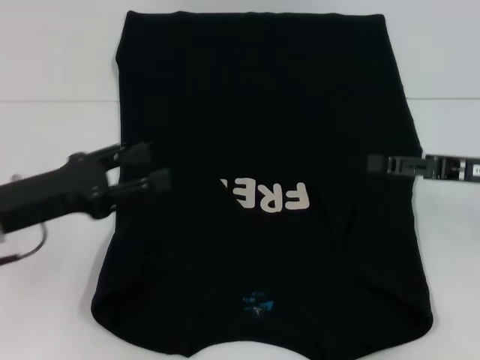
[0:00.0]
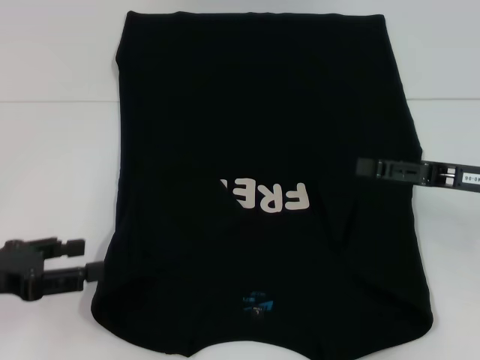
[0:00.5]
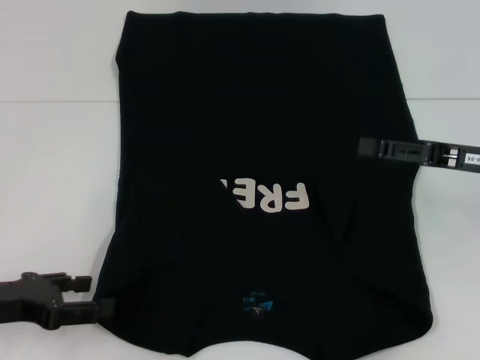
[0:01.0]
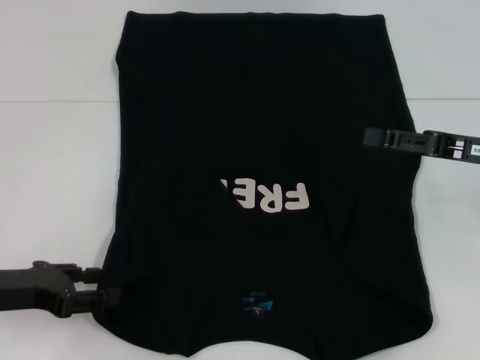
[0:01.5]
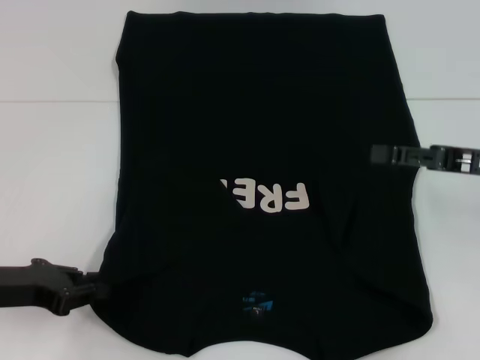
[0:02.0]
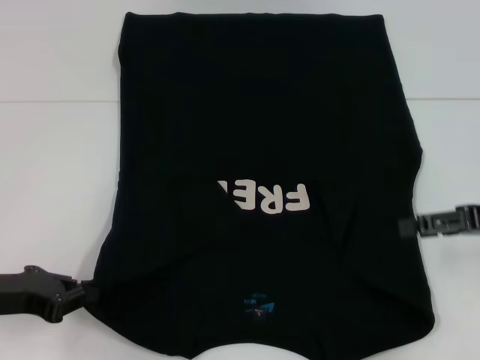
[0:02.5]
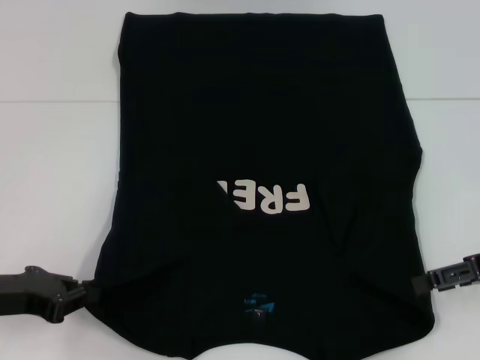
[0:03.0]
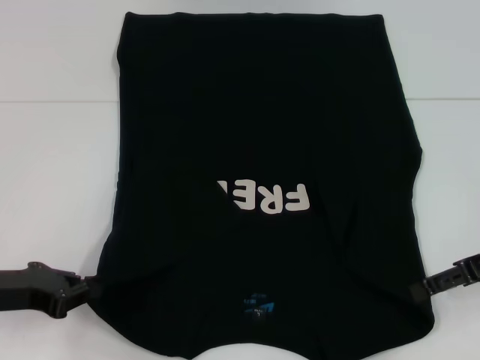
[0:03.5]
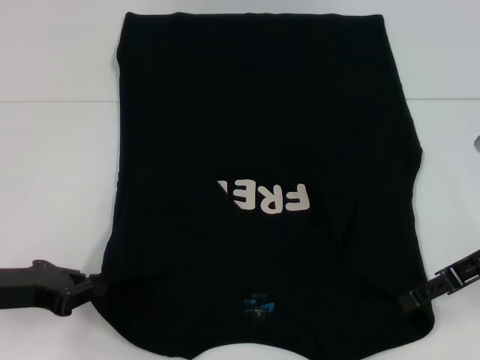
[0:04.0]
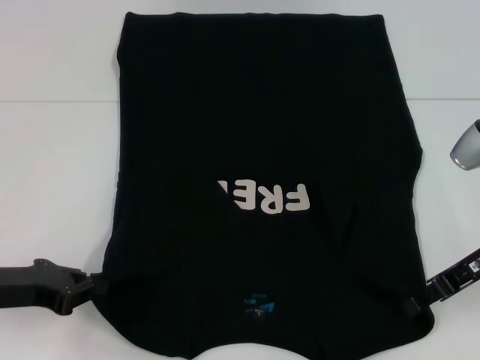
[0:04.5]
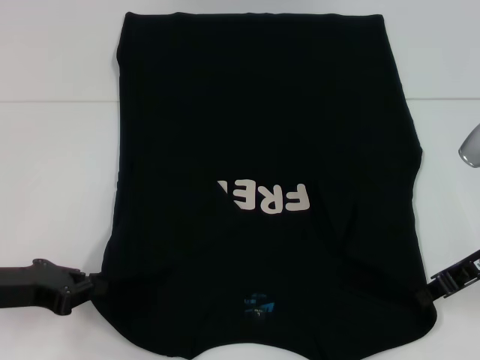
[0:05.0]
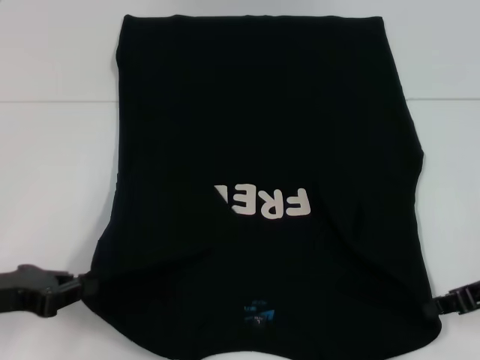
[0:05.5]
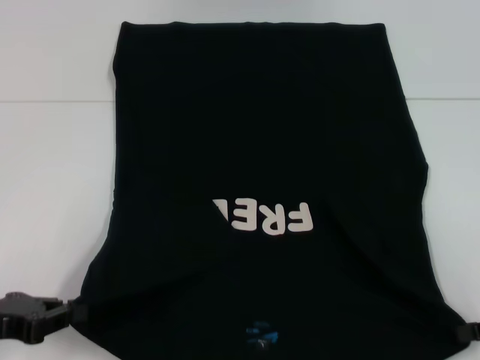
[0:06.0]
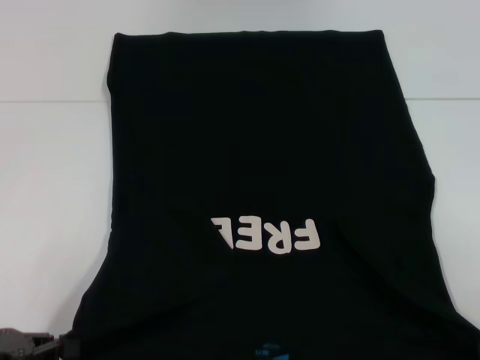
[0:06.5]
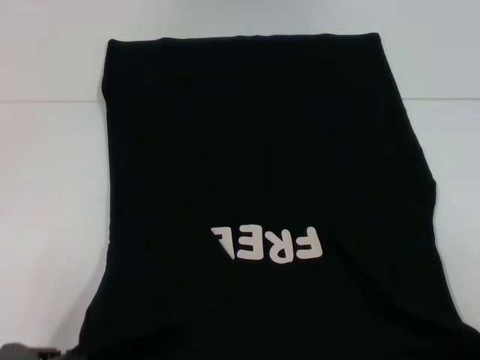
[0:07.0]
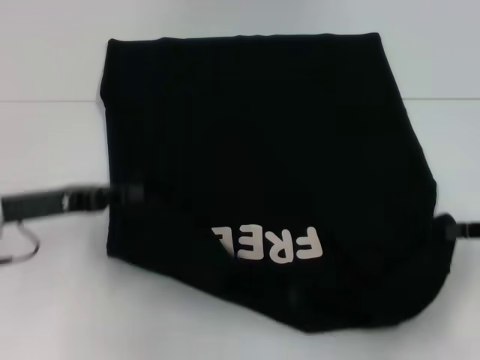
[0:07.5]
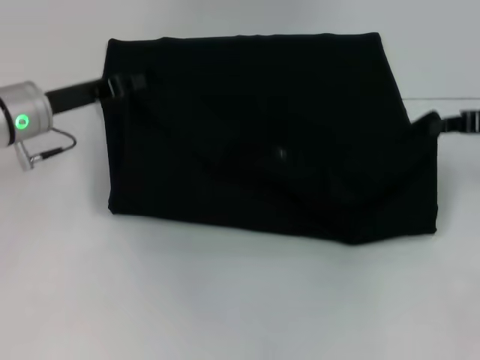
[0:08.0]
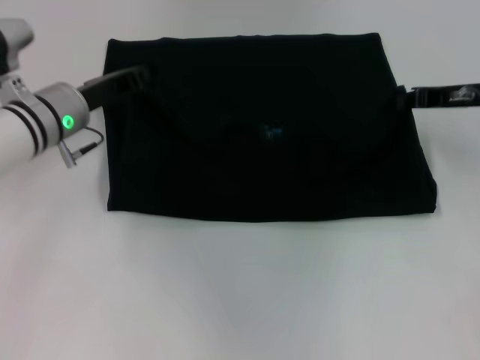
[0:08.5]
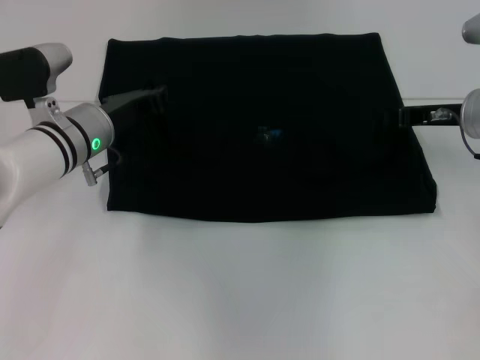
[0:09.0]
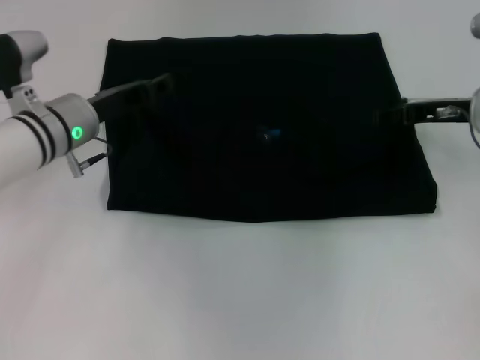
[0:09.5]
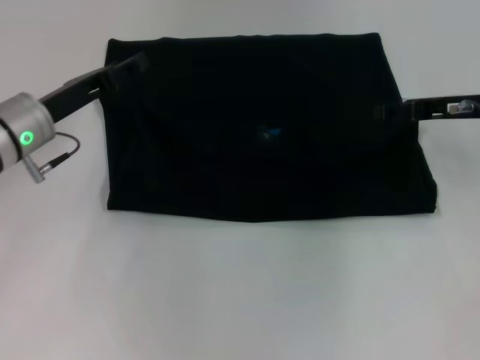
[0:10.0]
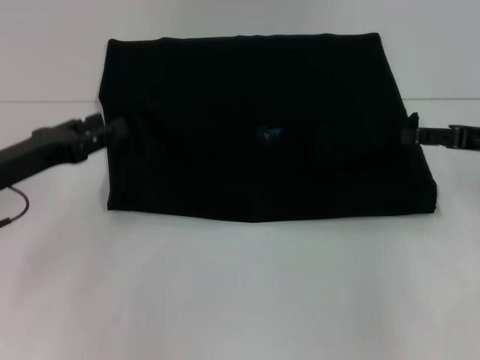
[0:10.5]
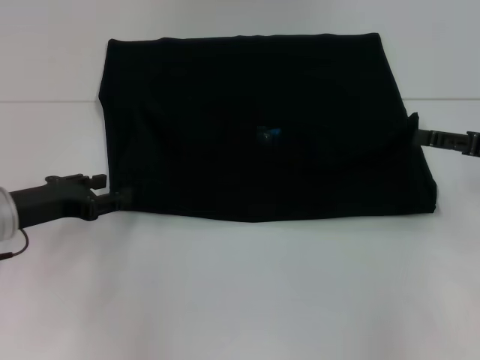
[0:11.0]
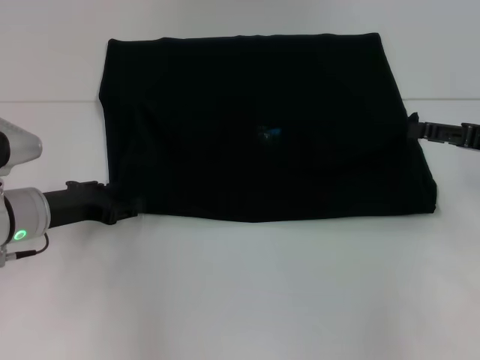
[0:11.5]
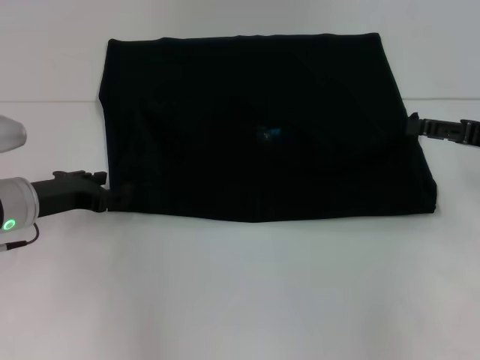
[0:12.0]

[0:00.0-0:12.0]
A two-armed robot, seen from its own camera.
Step, 0:00.0 to 0:02.0: Grab the bottom left corner with your left hand.
Step, 0:02.5 to 0:05.0: Grab the bottom right corner with your right hand.
Step, 0:05.5 to 0:09.5: Fold the clothes with your left hand.
Step, 0:05.5 to 0:09.5: Fold the clothes with your right hand.
0:00.0 to 0:02.0: The left gripper moves roughly 5 cm, and closes its fingers.
0:02.0 to 0:04.0: The left gripper closes its fingers.
0:04.0 to 0:06.0: The right gripper travels backward and to the right by some 10 cm, and closes up.
0:06.0 to 0:08.0: The left gripper travels forward and to the right by approximately 20 cm; the right gripper goes roughly 15 cm forward and upward.
0:08.0 to 0:10.0: The right gripper travels to the left by approximately 5 cm, and opens its fingers, while the left gripper opens its fingers.
0:10.0 to 0:12.0: The right gripper goes some 10 cm backward and to the right. Meanwhile the left gripper changes place by about 5 cm.

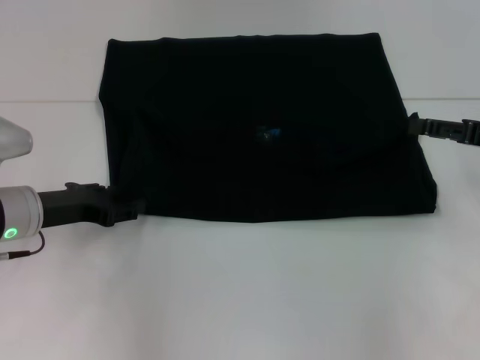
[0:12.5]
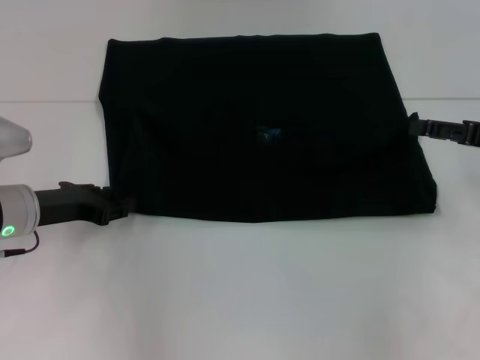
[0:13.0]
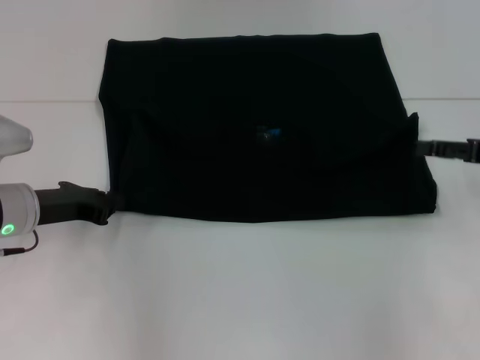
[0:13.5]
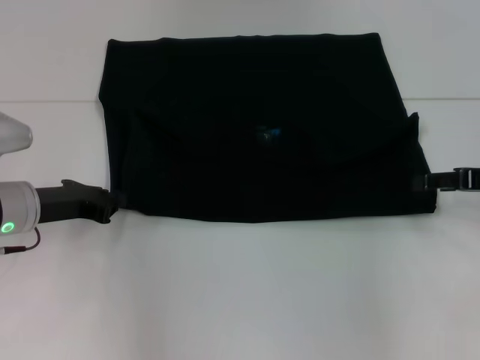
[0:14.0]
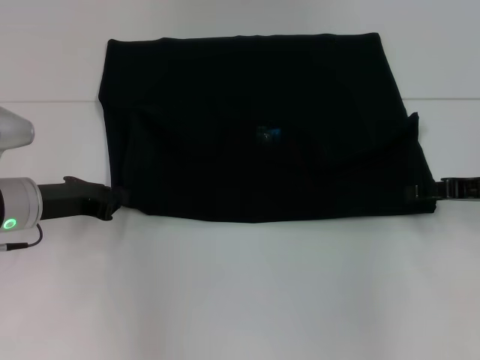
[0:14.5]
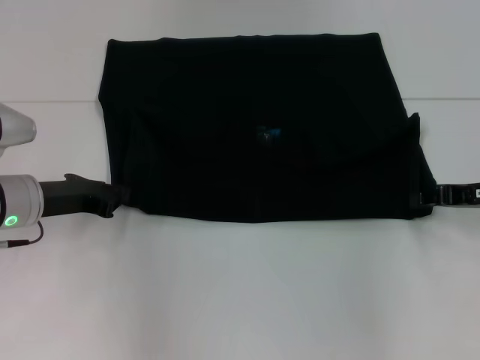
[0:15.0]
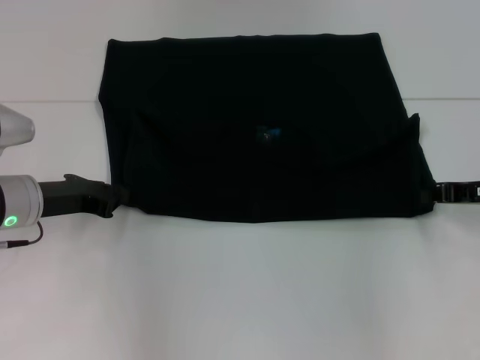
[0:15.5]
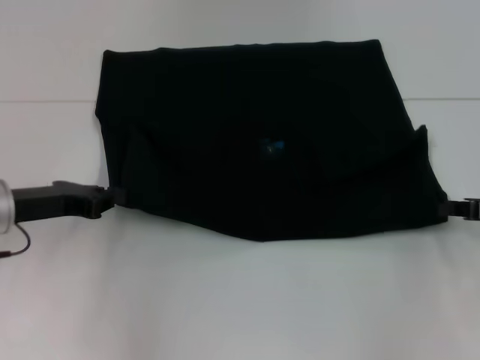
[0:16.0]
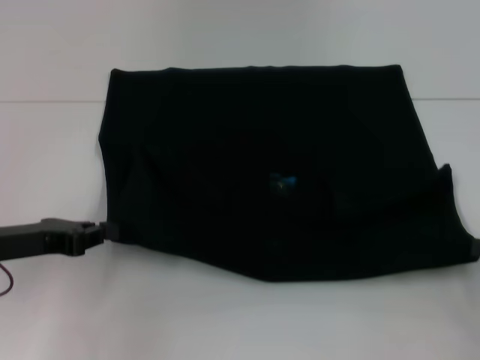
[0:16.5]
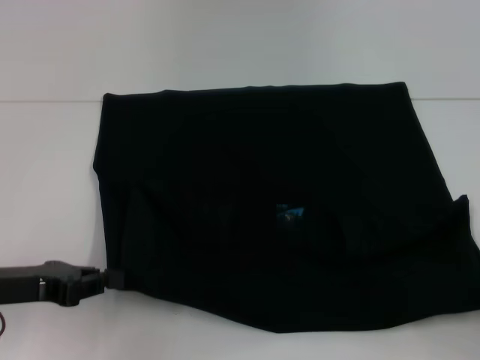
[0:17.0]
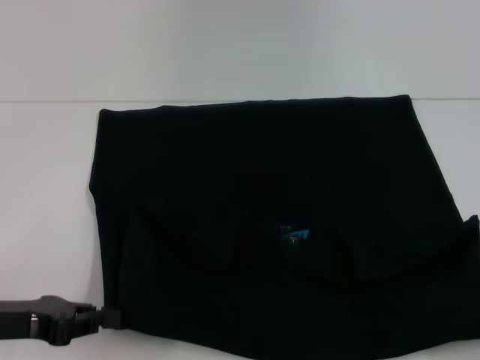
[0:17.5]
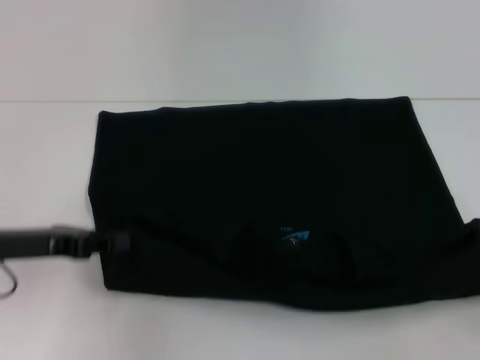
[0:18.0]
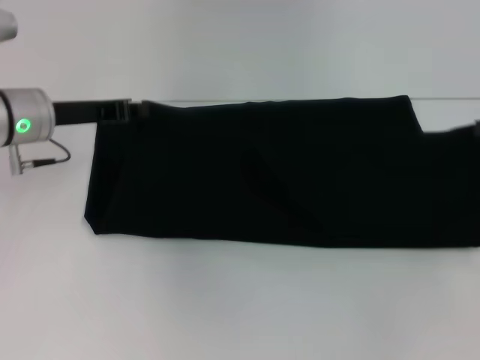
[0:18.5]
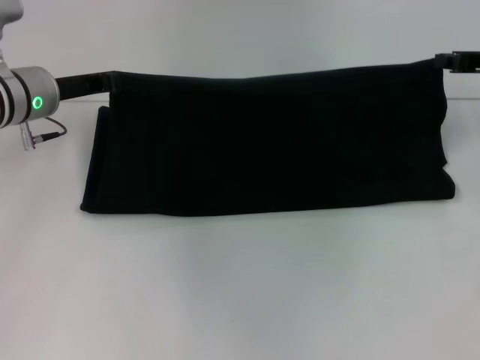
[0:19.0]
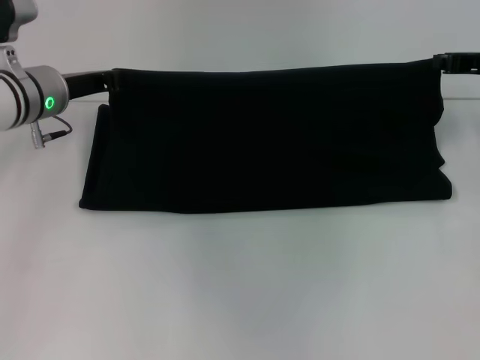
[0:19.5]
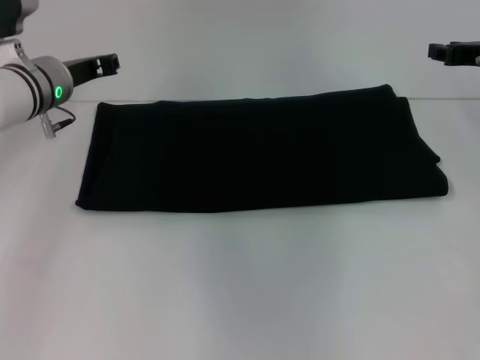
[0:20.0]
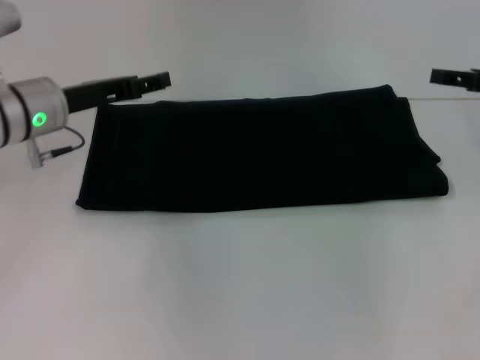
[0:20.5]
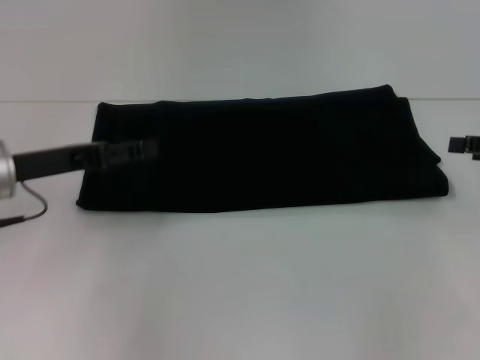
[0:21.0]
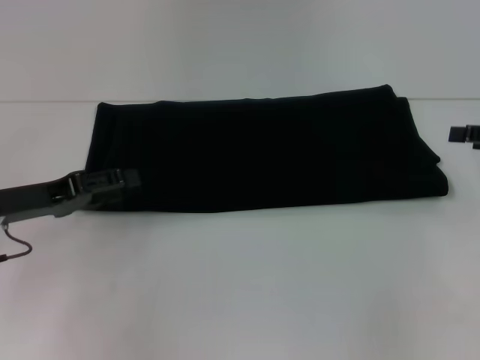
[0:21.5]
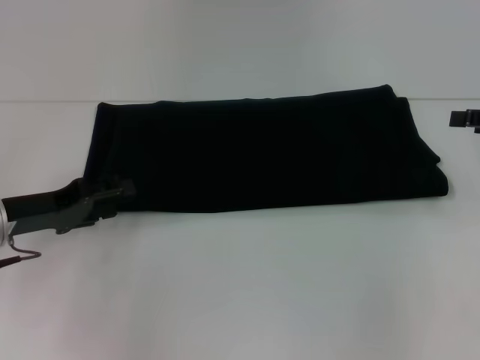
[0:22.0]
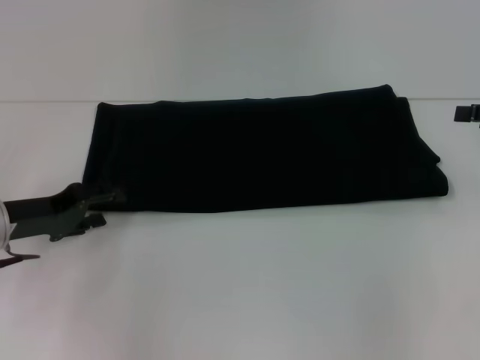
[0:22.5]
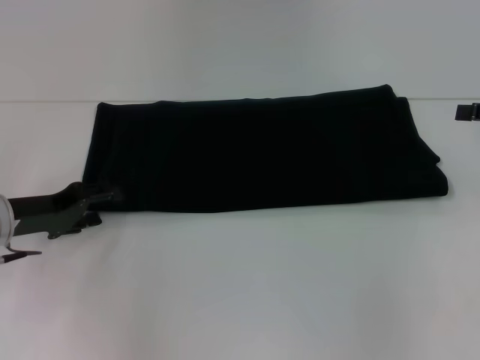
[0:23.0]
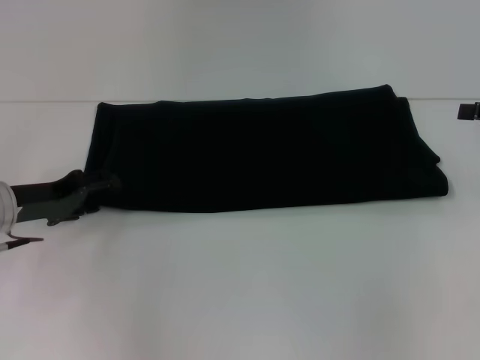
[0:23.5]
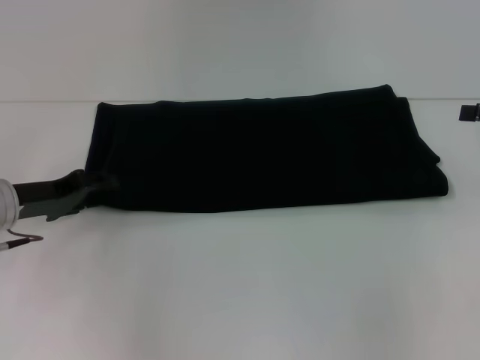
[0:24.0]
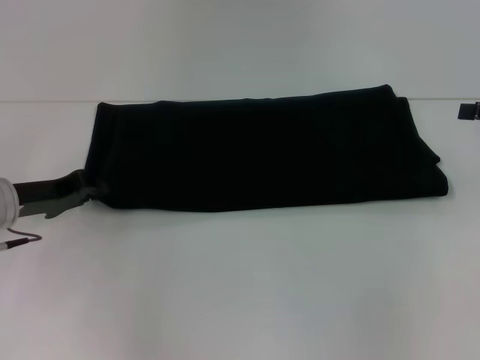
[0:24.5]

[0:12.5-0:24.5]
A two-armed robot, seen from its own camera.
Step, 0:12.5 to 0:17.5: Pull the clothes with your left hand.
Step, 0:12.5 to 0:17.5: Pull the clothes with your right hand.
Step, 0:18.0 to 0:19.5: Fold the clothes with your right hand.
0:12.5 to 0:14.5: The left gripper closes up.
0:14.5 to 0:16.5: The right gripper goes approximately 15 cm backward and to the right, and closes; the left gripper moves backward, about 5 cm.
0:16.5 to 0:18.5: The left gripper heads forward, upward and to the right, covering some 15 cm. The right gripper goes approximately 10 cm forward and upward.
0:18.5 to 0:20.5: The left gripper opens. The right gripper opens up.
0:20.5 to 0:22.5: The left gripper shifts approximately 10 cm backward, downward and to the left. Meanwhile the right gripper shifts by approximately 5 cm.
0:22.5 to 0:24.5: The left gripper closes its fingers.

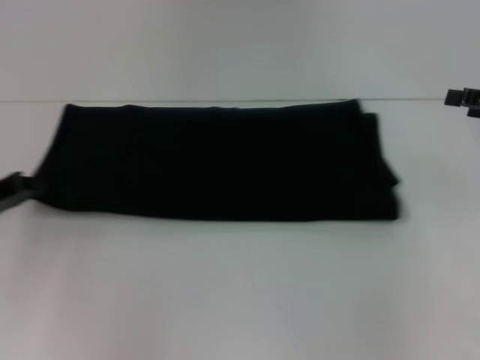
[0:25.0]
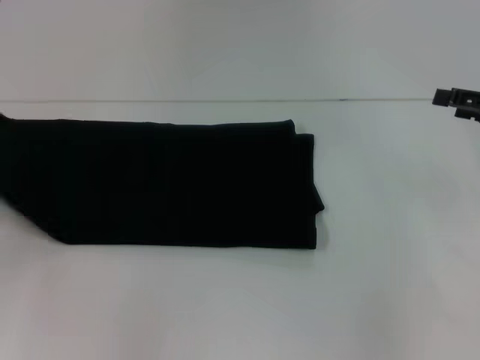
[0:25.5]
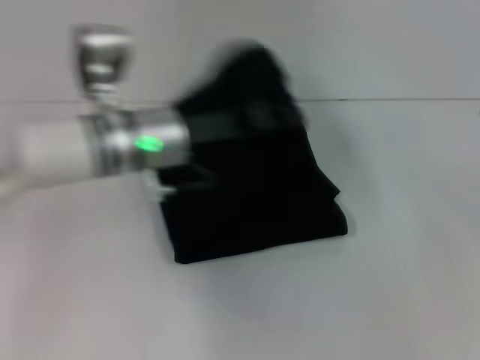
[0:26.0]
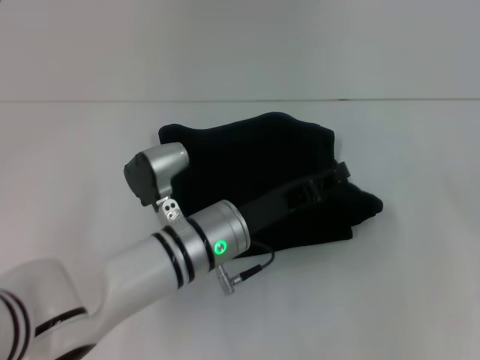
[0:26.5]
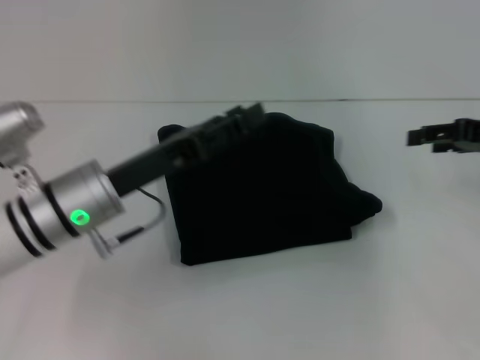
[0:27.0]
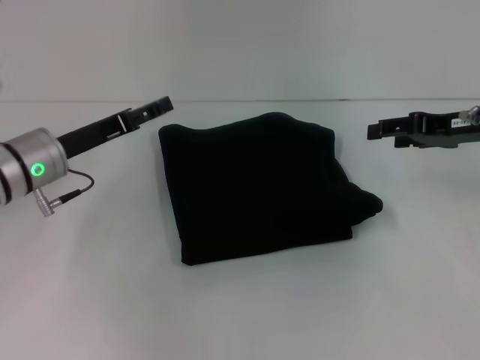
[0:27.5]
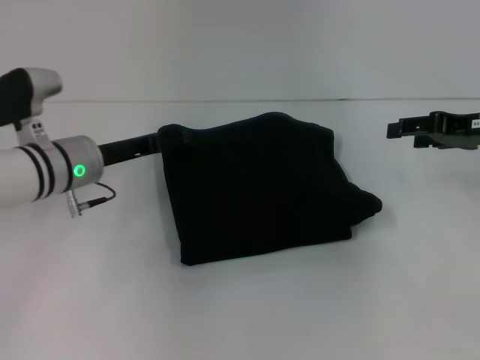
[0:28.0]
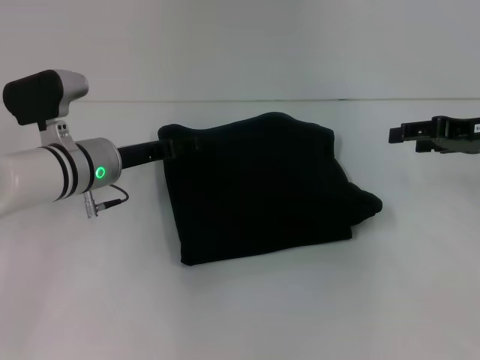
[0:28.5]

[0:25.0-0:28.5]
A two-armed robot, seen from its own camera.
0:25.0 to 0:27.0: The left gripper swings left and right, about 35 cm each way, with 2 reversals, and opens its fingers.
0:27.0 to 0:28.5: The left gripper heads forward, covering approximately 10 cm, and opens.
